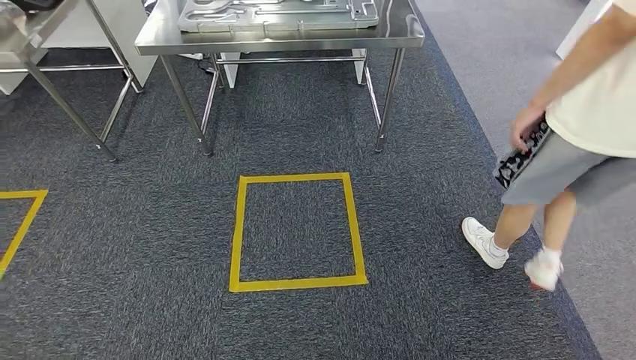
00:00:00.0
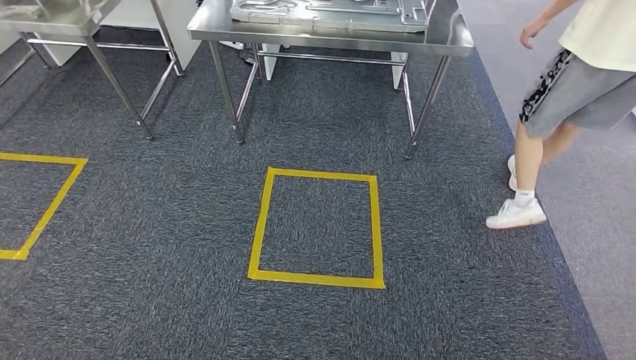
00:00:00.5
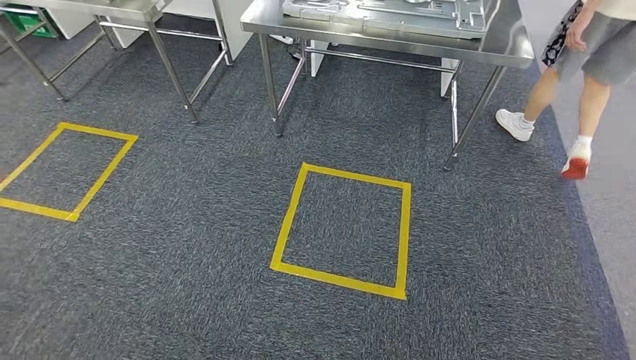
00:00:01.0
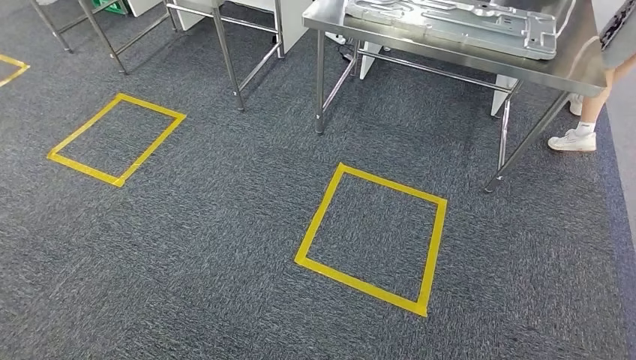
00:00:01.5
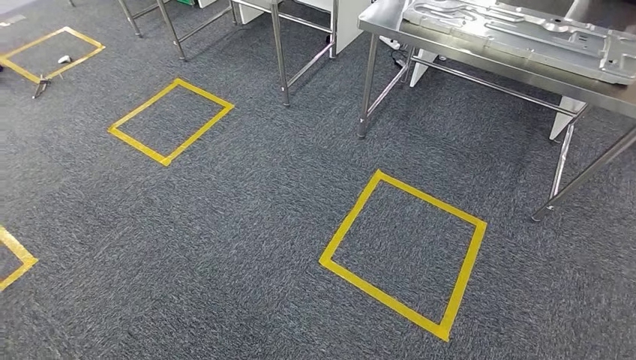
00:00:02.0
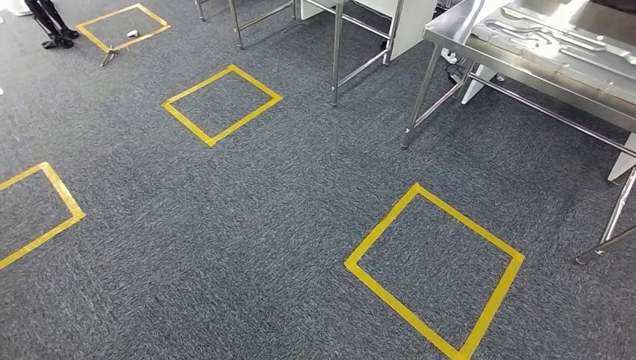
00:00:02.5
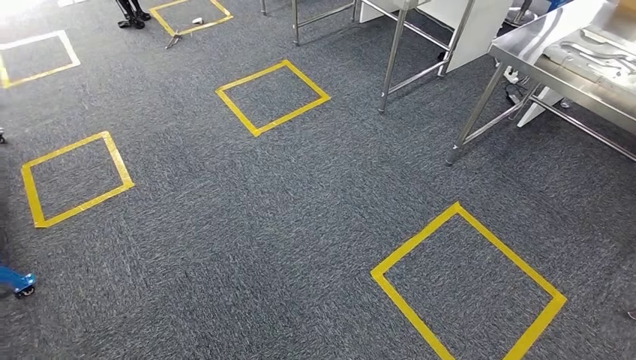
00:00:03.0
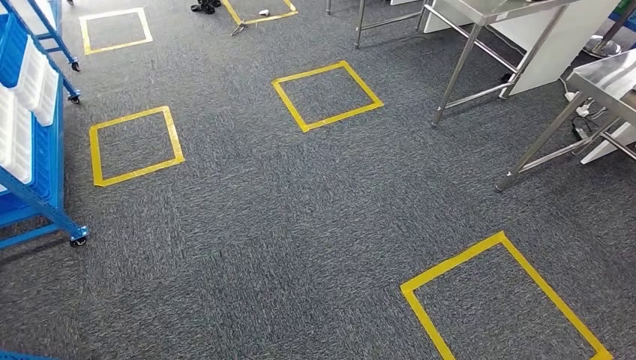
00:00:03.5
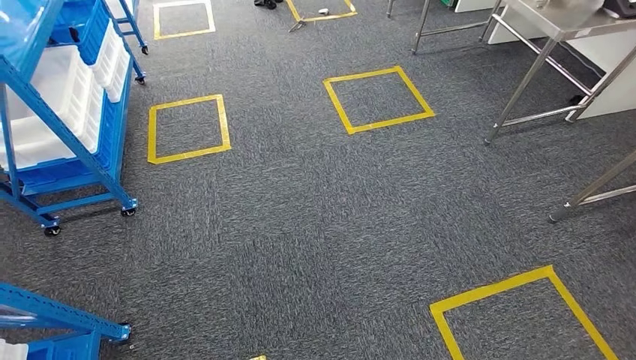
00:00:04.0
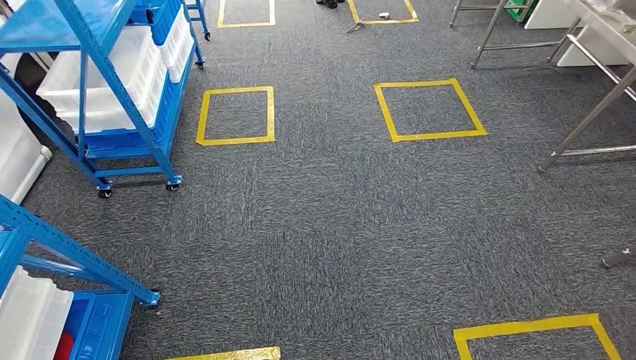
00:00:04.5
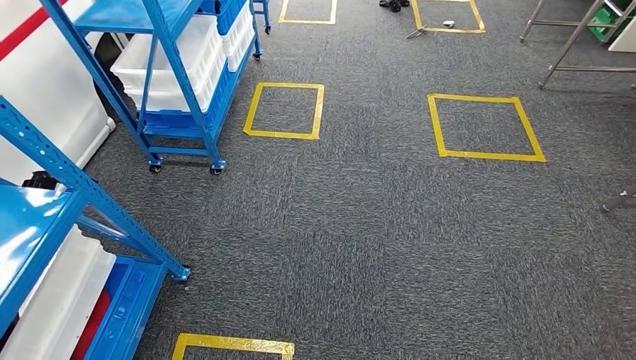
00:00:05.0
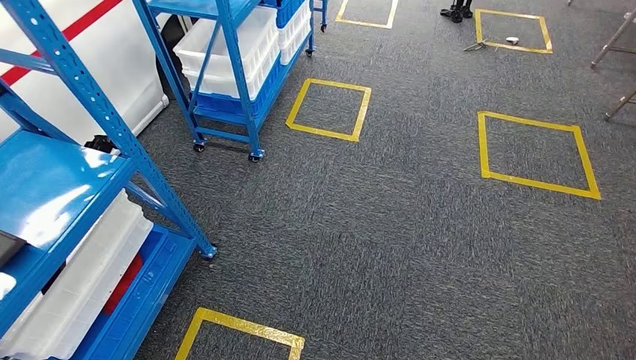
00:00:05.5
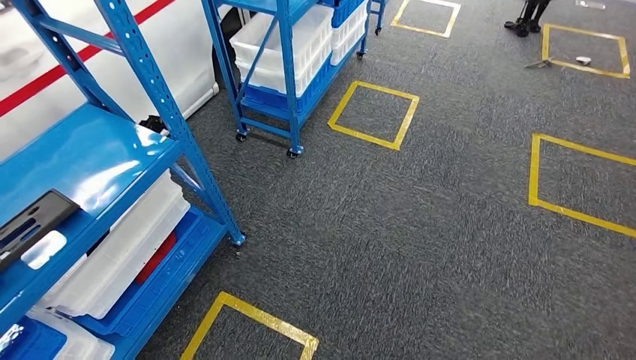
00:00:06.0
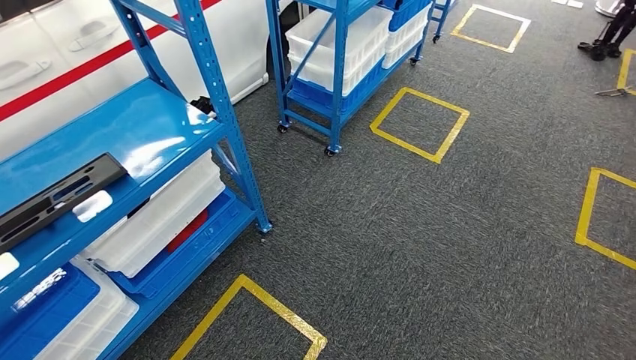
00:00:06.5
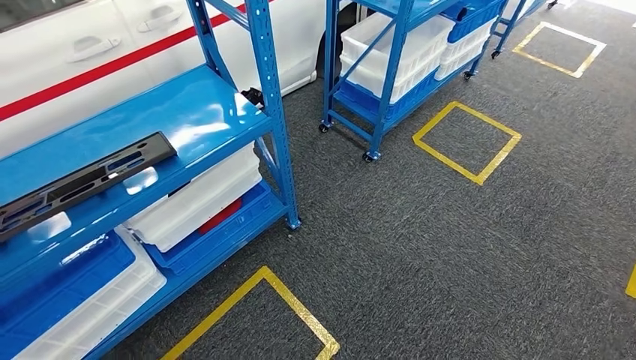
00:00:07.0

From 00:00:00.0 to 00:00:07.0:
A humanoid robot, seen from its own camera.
Step, from 00:00:00.0 to 00:00:07.0: Move to the initial position of the shelf.
